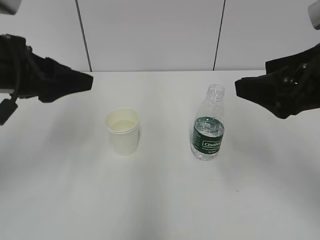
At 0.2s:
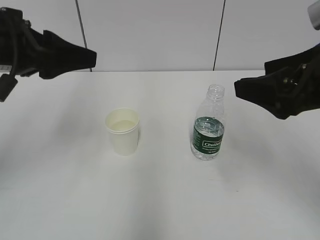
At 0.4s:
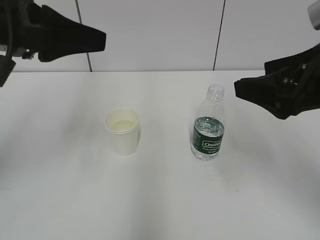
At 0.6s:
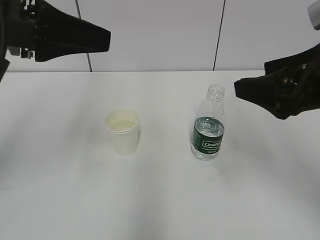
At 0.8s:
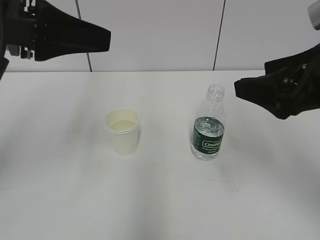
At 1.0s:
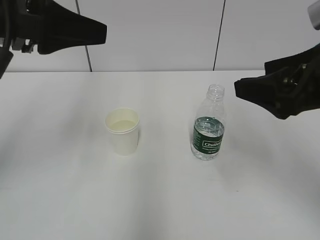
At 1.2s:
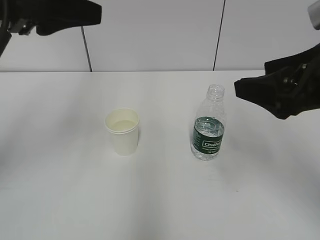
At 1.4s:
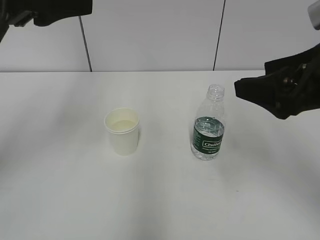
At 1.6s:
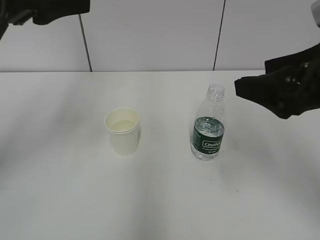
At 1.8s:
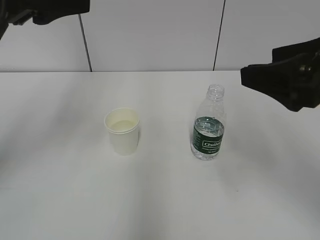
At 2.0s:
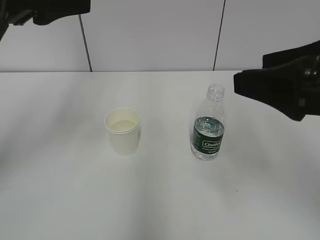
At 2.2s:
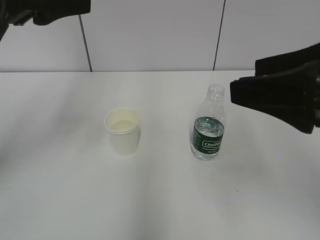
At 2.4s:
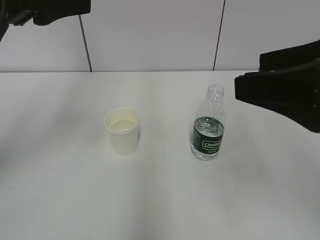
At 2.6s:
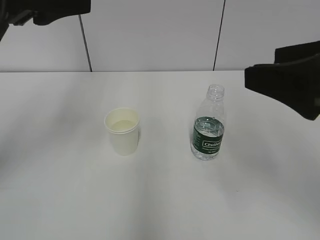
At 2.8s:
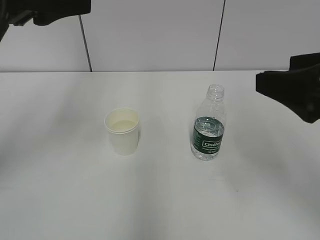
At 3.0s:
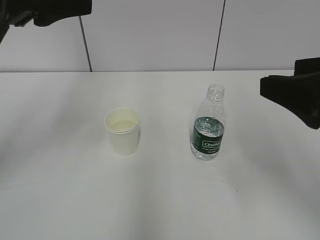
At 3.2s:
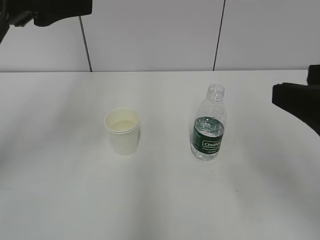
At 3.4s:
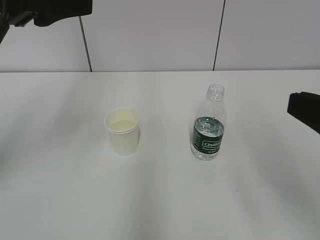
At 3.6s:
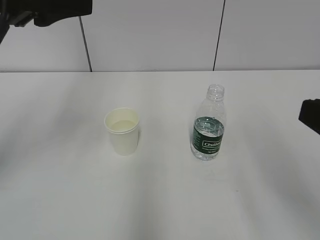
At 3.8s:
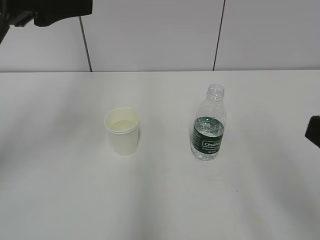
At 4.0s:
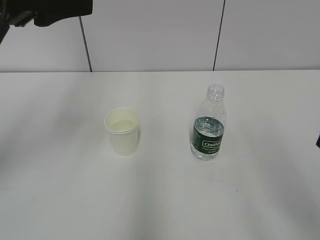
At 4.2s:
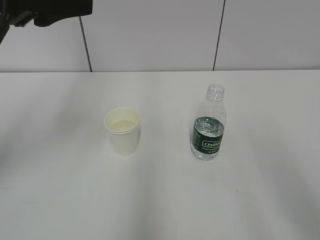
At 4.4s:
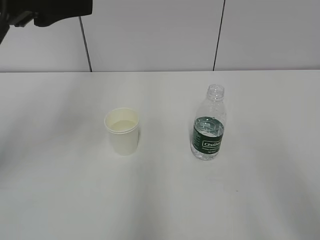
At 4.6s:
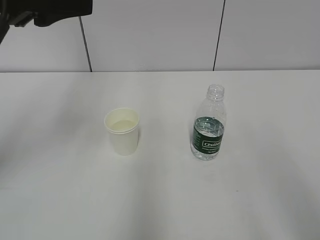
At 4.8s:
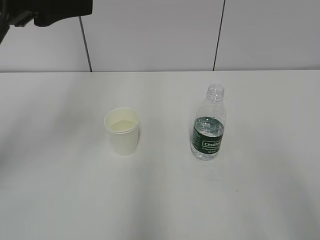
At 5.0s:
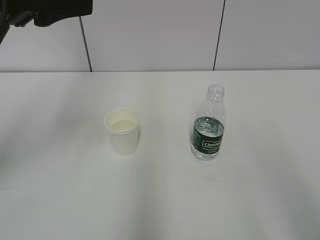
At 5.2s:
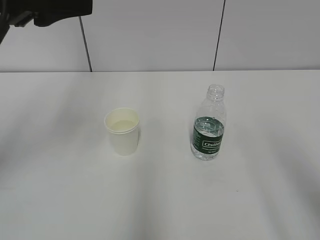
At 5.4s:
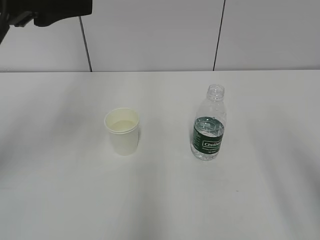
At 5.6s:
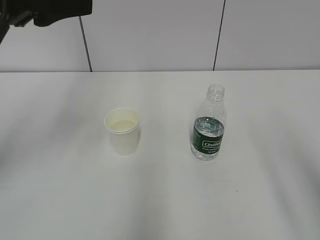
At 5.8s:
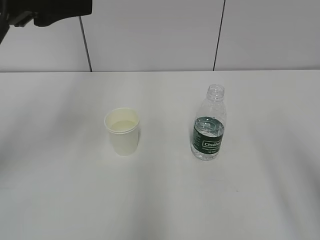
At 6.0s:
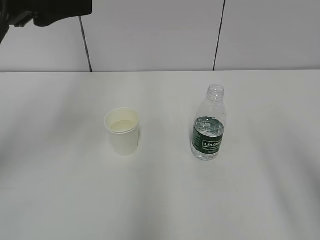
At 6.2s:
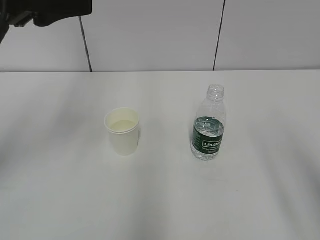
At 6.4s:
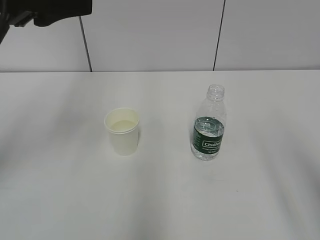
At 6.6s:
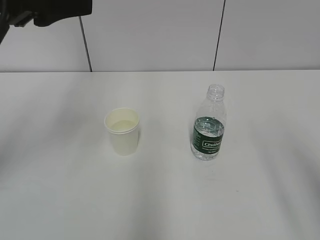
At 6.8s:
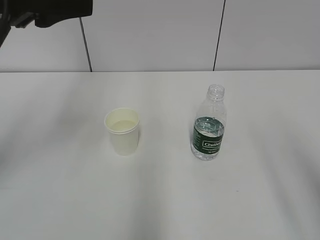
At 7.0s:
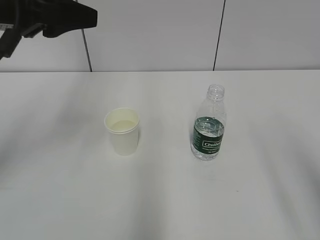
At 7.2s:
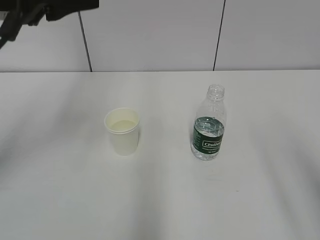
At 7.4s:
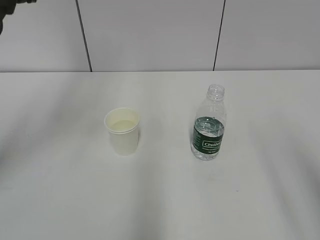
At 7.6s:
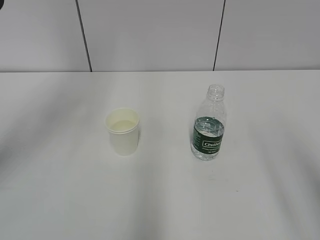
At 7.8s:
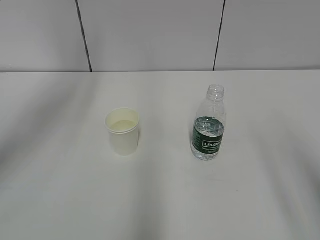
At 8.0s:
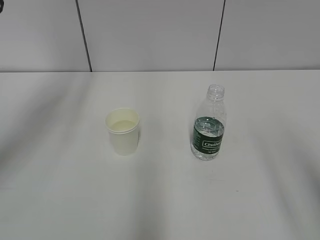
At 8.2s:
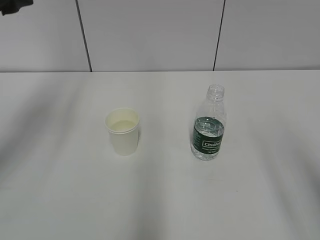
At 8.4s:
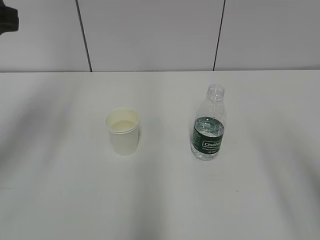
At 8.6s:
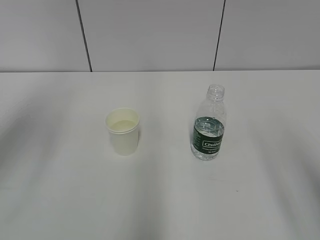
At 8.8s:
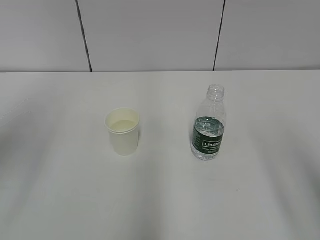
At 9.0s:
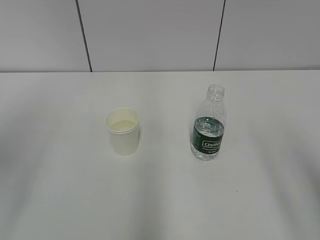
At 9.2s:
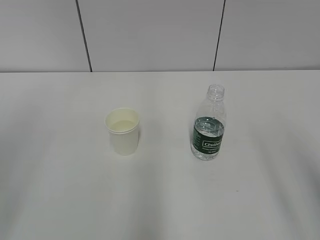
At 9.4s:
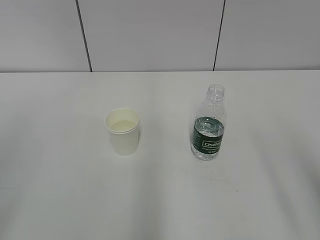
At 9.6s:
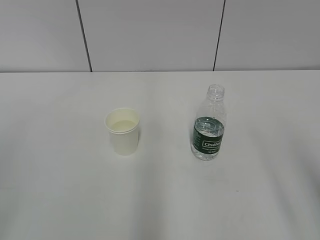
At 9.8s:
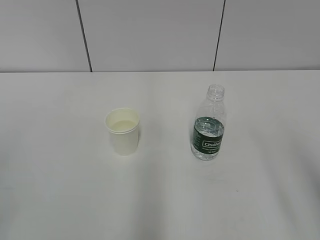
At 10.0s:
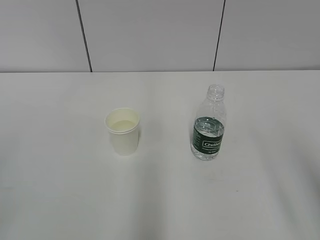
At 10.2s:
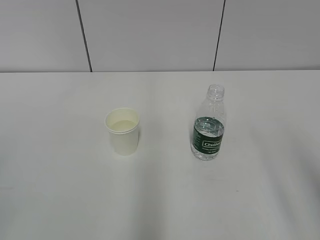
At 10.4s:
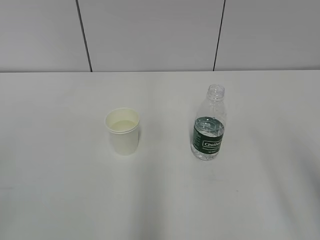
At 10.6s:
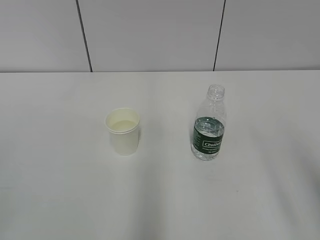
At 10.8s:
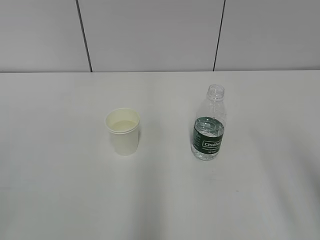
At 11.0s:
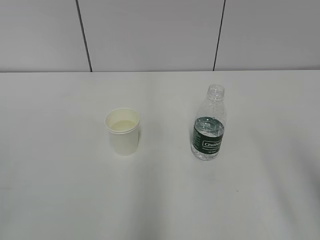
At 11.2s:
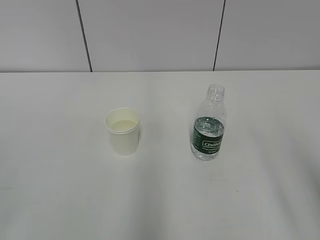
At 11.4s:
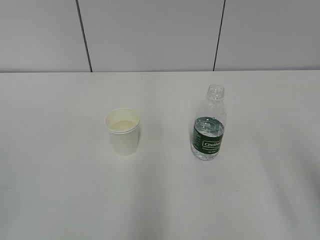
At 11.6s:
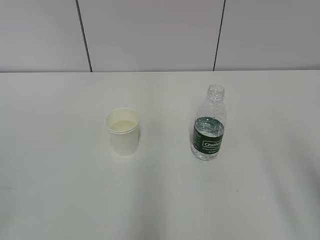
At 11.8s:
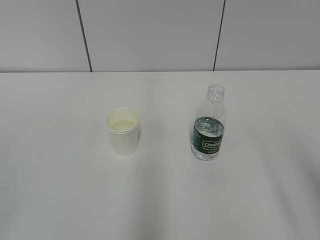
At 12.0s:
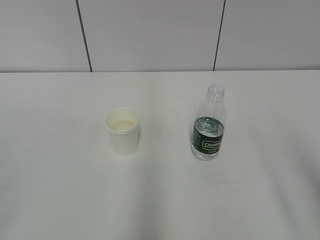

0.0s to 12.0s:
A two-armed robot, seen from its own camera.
0.0s to 1.6s: The left gripper travels upward by approximately 5 cm.
1.6s to 3.0s: The grippers stay close to where they were, moving slightly.
3.0s to 4.4s: The right gripper shifts approximately 10 cm backward.
